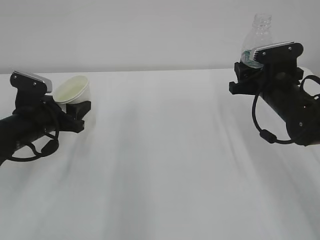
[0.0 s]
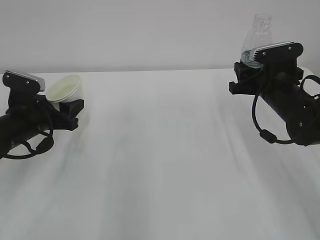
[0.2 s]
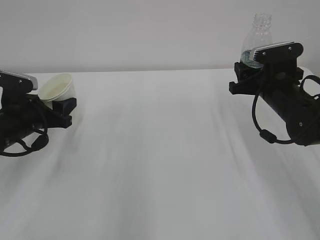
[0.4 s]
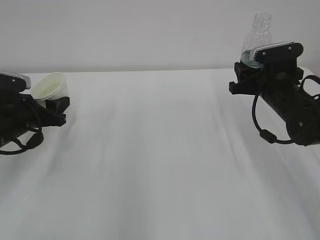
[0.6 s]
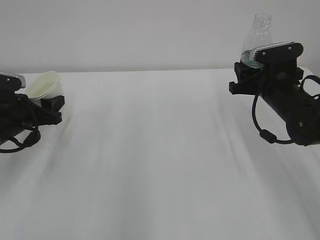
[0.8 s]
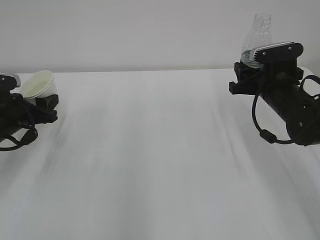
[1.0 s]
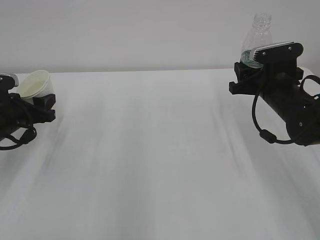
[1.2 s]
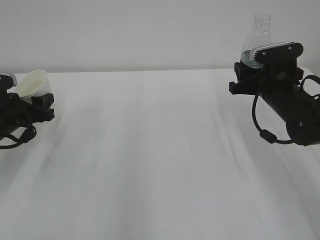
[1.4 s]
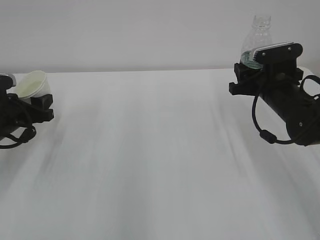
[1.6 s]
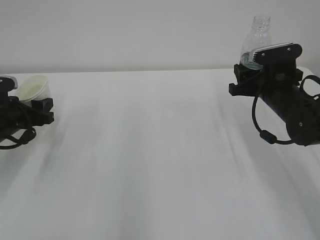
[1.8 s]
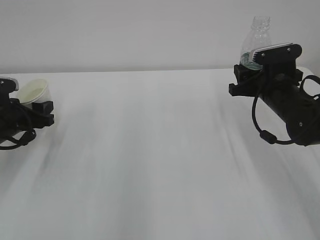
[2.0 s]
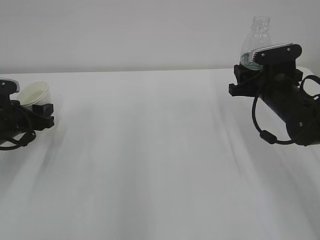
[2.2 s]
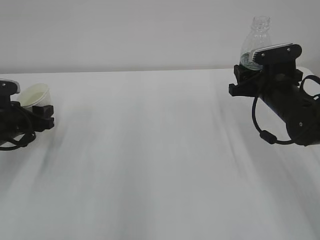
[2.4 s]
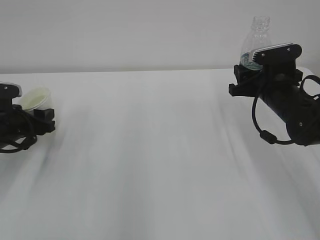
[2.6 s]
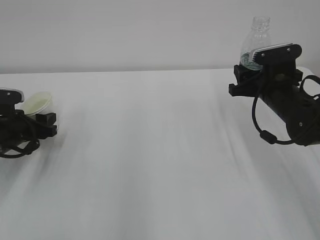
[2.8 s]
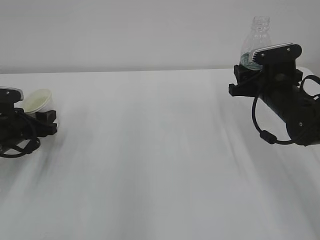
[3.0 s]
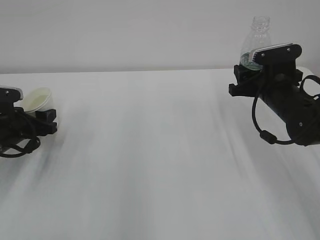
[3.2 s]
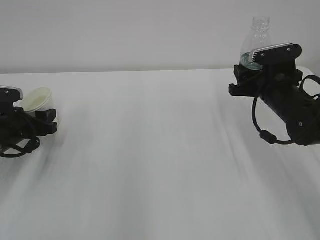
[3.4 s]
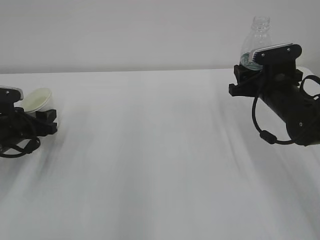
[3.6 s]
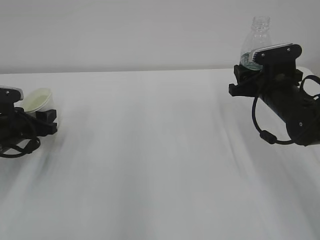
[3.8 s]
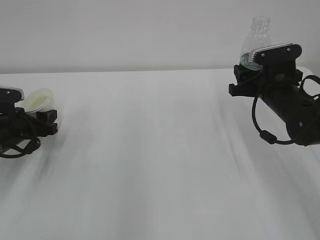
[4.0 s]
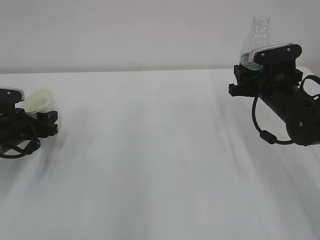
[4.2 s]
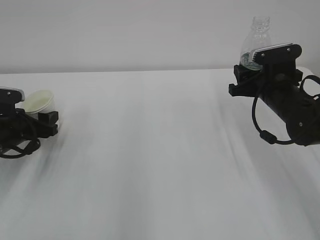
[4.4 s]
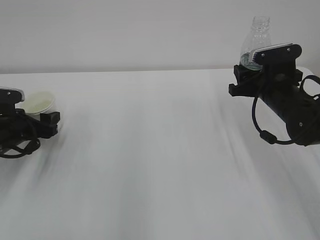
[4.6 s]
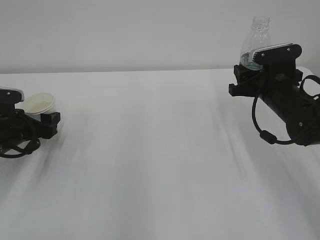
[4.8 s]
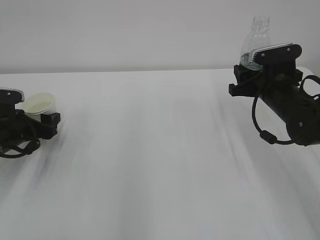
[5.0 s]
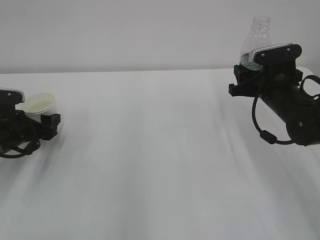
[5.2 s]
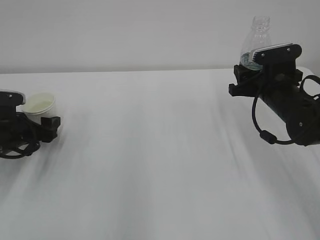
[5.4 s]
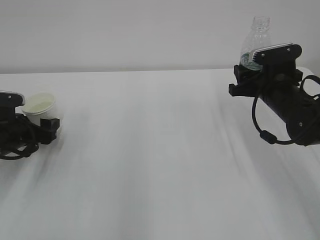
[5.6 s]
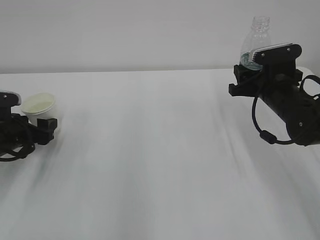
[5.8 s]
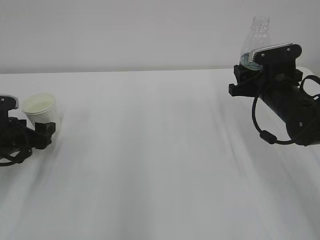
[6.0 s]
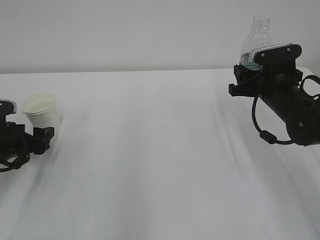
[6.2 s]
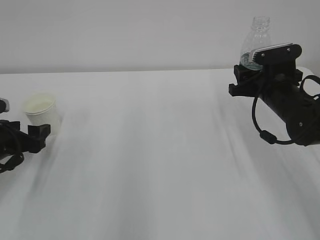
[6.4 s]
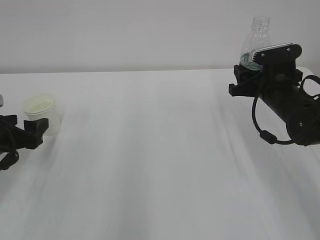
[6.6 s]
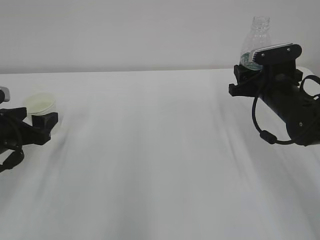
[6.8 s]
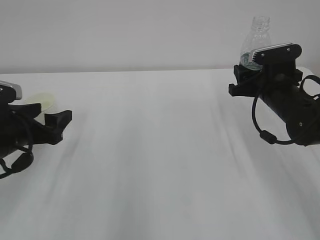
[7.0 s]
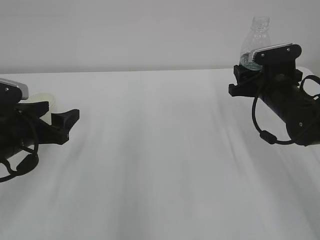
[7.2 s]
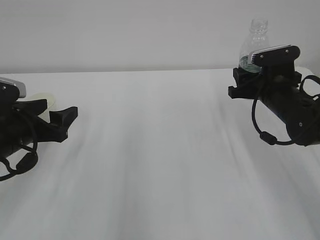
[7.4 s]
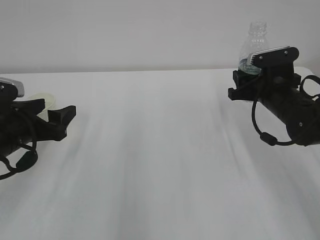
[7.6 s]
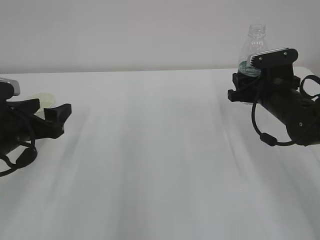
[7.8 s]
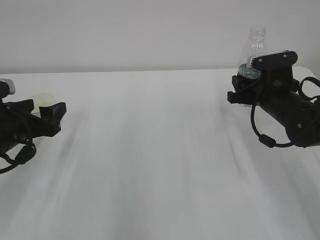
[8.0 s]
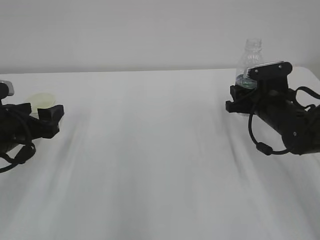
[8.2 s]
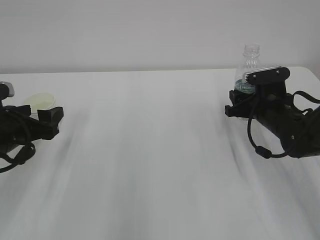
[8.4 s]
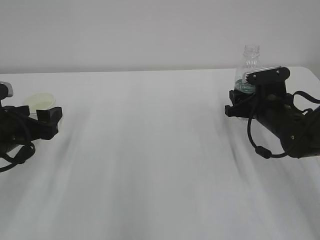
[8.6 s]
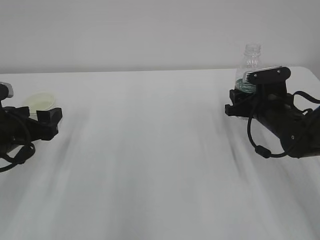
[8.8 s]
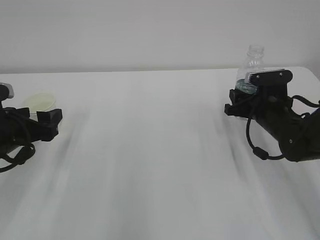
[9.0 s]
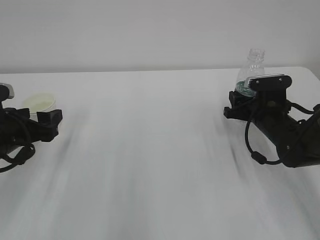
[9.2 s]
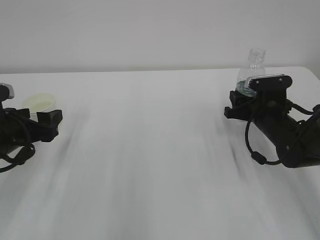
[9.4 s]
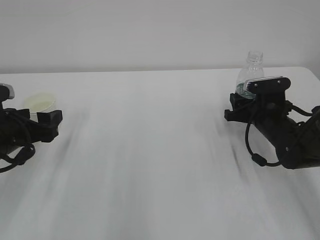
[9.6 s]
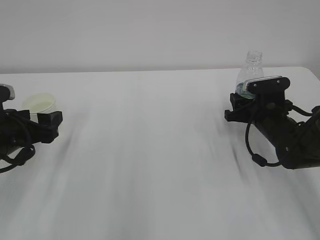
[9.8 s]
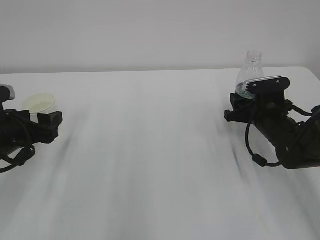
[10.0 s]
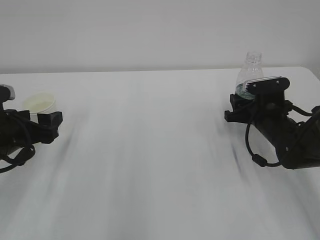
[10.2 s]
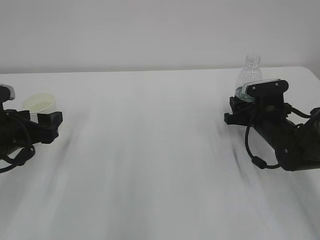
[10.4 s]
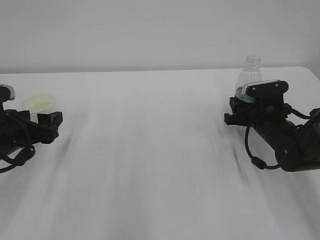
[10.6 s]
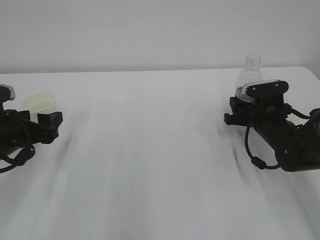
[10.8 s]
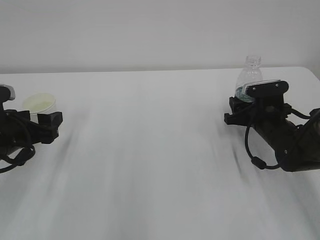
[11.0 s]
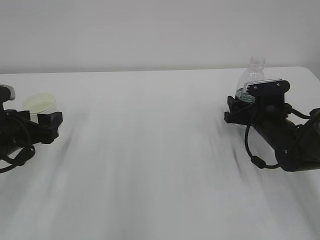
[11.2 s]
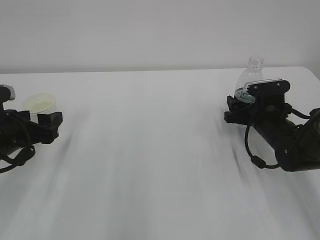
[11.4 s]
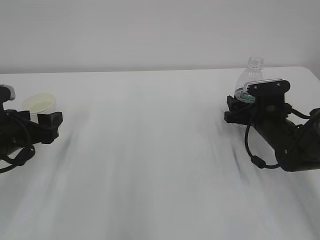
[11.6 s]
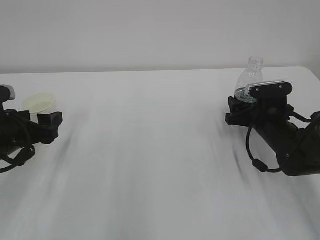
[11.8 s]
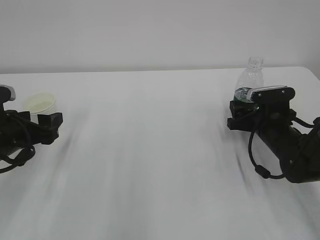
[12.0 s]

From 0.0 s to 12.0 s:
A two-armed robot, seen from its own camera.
From 0.0 s to 1.6 s: The left gripper shifts about 5 cm to the left.
From 1.6 s to 3.0 s: The grippers make only small movements.
From 3.0 s to 4.4 s: Both grippers stay put.
From 4.4 s to 6.0 s: The left gripper opens.
From 6.0 s to 7.6 s: The left gripper is displaced upward and to the right by some 10 cm.
From 7.6 s to 9.0 s: The grippers stay close to where they were, moving slightly.
From 9.0 s to 10.4 s: The grippers make only small movements.
From 10.4 s to 12.0 s: The right gripper opens its fingers.

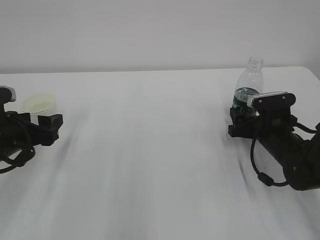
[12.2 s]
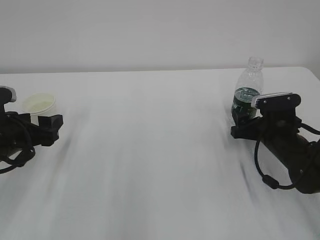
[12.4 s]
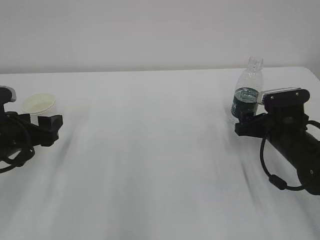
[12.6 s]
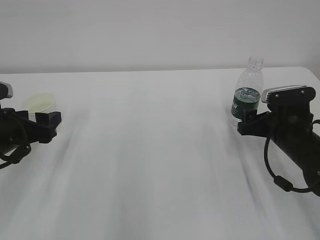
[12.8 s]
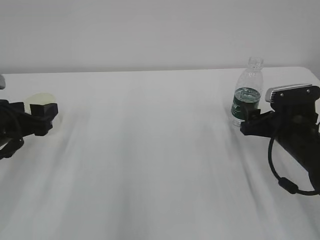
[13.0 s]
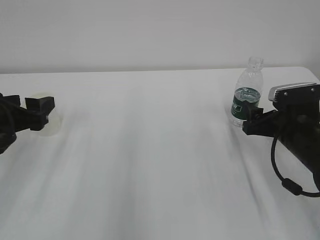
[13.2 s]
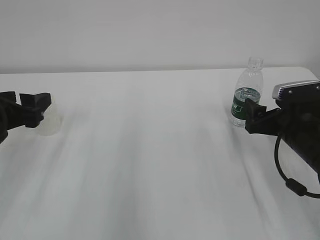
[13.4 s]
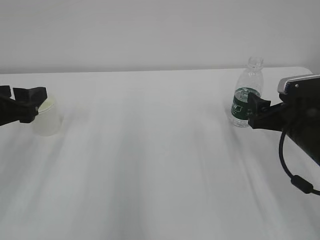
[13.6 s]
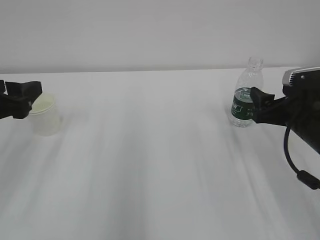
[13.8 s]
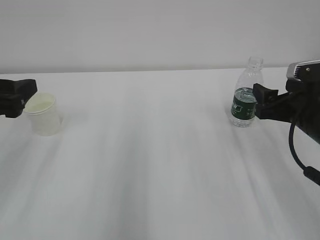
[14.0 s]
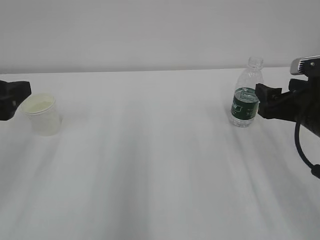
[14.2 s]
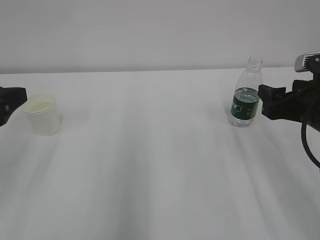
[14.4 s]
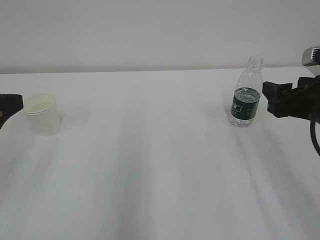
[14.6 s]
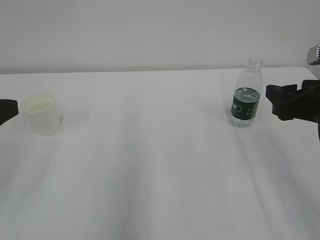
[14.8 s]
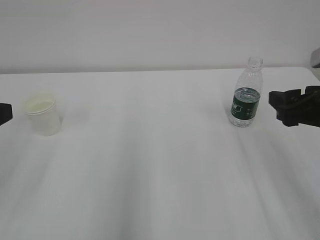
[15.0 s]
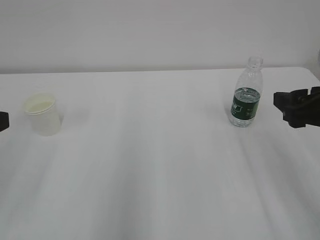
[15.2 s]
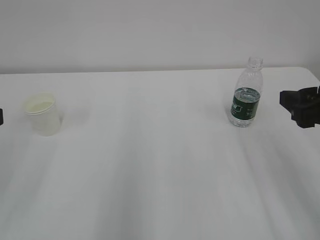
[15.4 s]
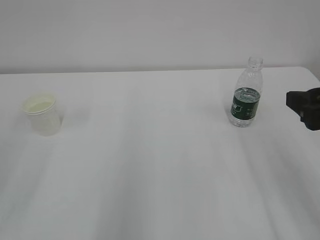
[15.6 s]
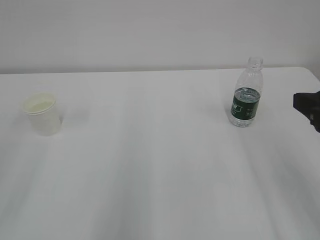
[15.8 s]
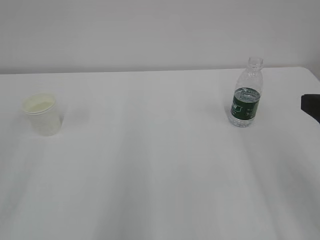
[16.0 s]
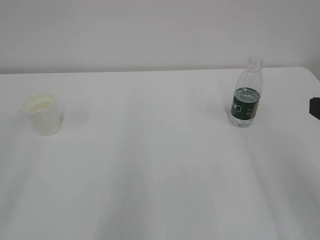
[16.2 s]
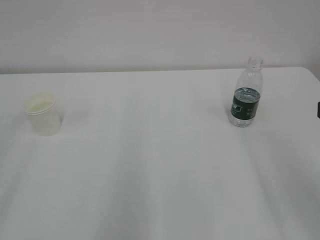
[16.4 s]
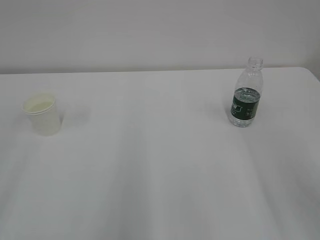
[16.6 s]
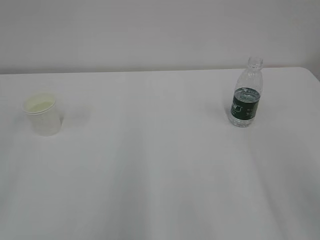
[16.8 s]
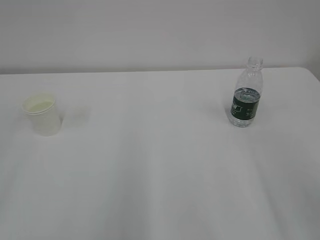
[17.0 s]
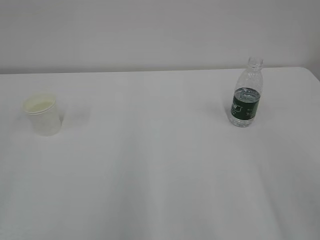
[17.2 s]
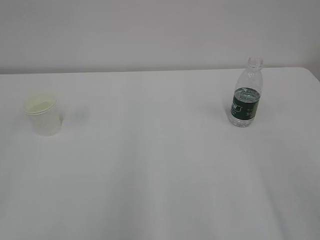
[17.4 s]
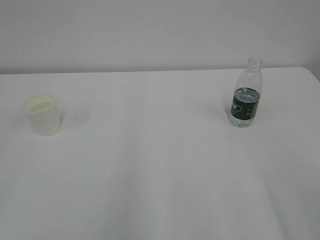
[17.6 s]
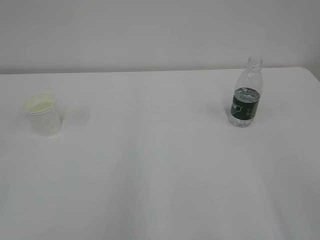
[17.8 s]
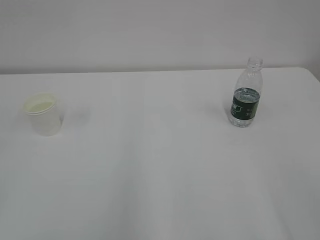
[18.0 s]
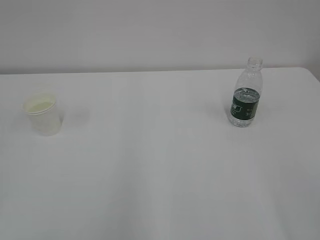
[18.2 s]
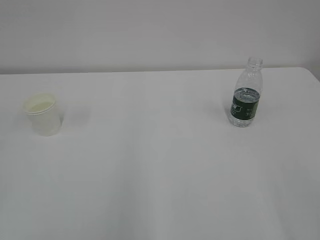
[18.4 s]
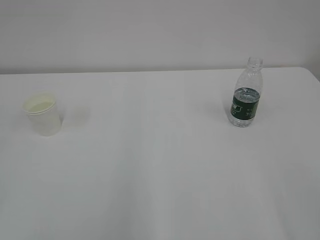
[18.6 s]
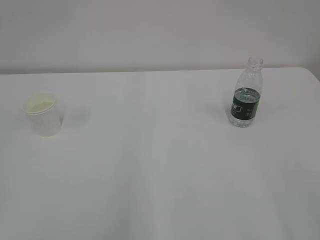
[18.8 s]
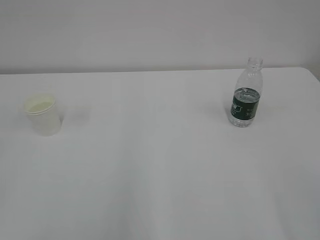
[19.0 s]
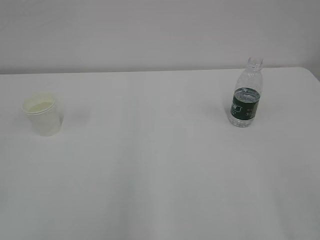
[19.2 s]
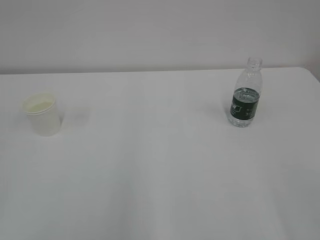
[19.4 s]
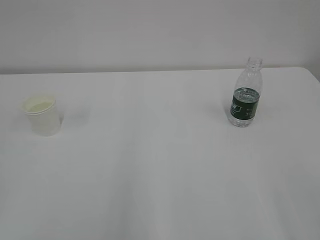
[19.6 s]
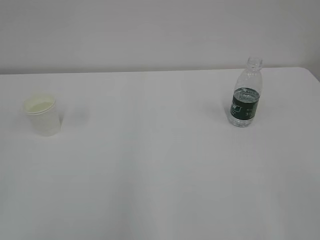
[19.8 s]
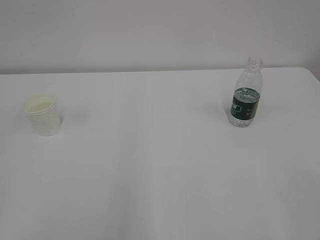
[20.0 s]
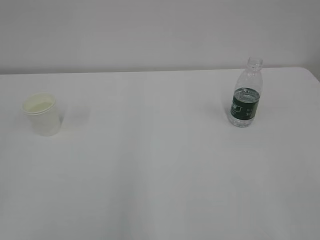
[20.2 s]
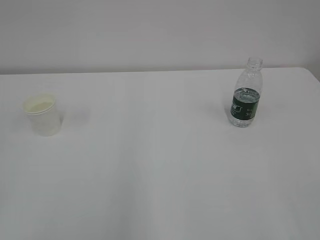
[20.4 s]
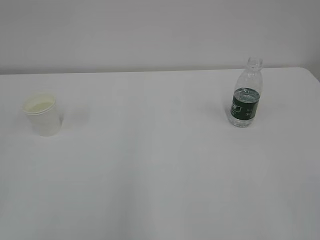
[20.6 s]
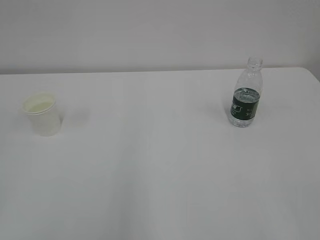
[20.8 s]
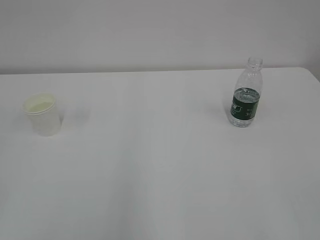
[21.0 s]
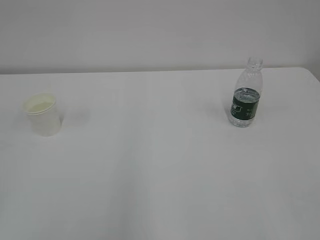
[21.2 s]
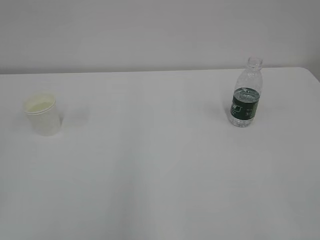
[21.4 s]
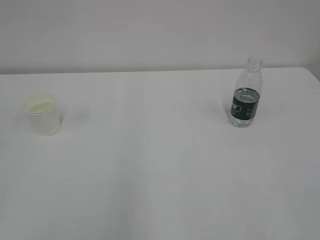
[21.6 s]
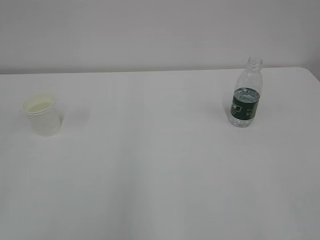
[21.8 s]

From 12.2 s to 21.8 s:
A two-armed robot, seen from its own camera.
From 12.2 s to 13.8 s: The right gripper is displaced upward and backward by about 10 cm, while the left gripper travels upward by about 10 cm.
From 13.8 s to 15.4 s: The right gripper travels upward and backward by about 10 cm. The left gripper shifts about 10 cm backward and upward.
From 15.4 s to 17.0 s: The right gripper travels backward by about 10 cm.

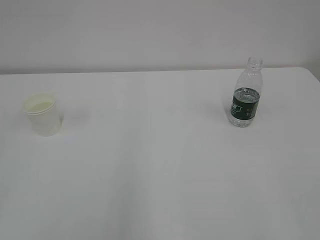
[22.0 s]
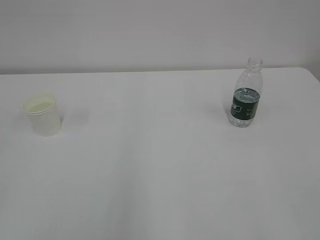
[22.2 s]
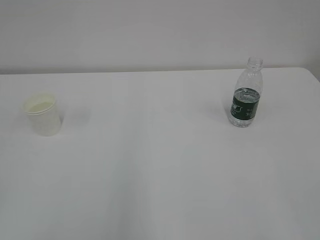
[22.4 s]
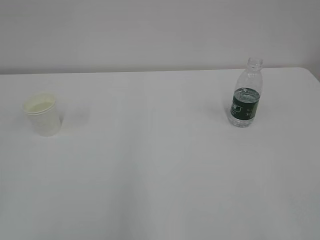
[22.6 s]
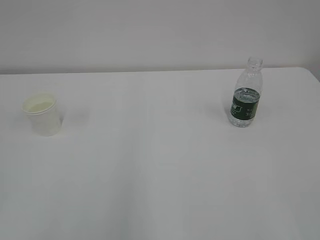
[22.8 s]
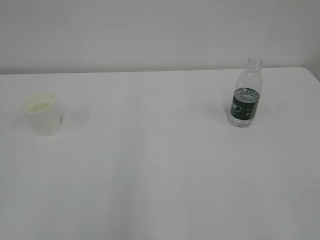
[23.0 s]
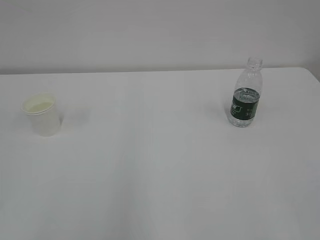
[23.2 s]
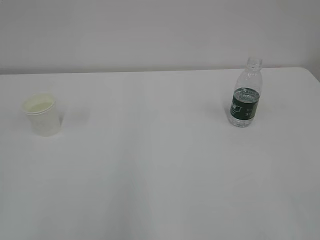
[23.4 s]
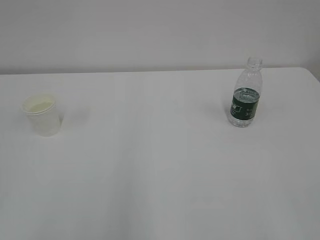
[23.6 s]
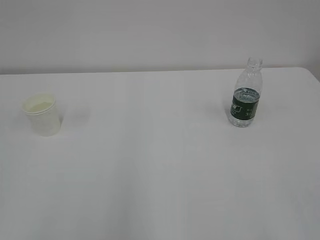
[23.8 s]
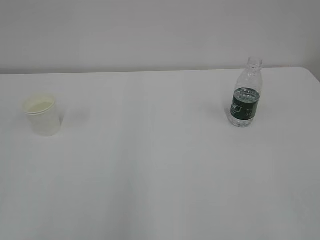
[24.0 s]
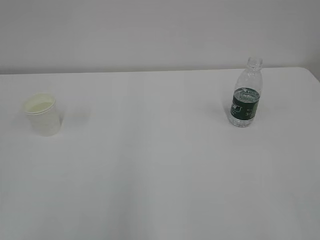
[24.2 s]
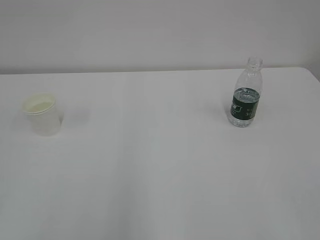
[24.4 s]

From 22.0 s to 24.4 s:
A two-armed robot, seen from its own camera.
From 23.2 s to 24.4 s: Both grippers stay about where they are.
